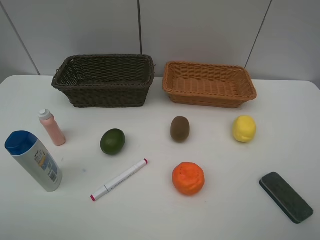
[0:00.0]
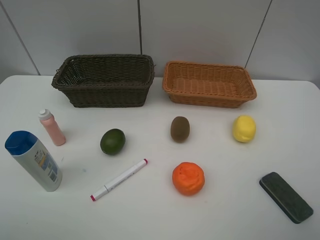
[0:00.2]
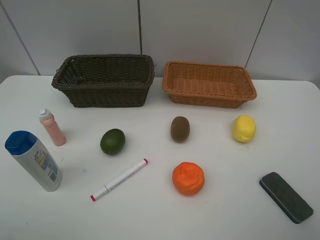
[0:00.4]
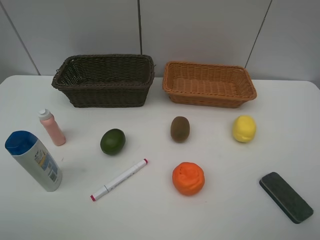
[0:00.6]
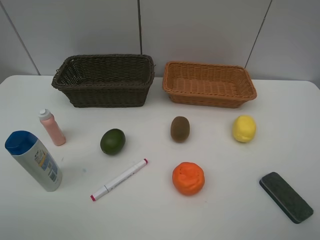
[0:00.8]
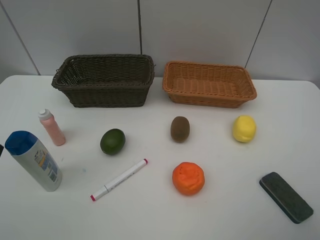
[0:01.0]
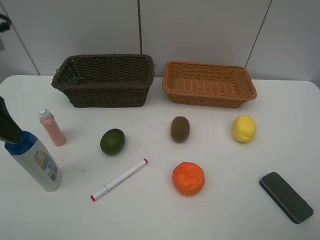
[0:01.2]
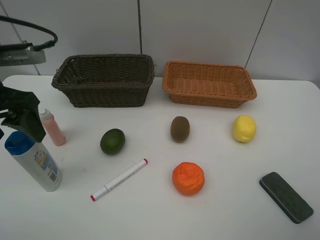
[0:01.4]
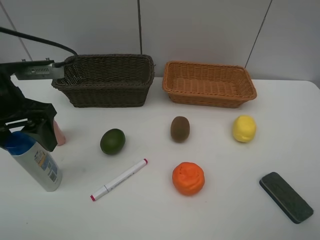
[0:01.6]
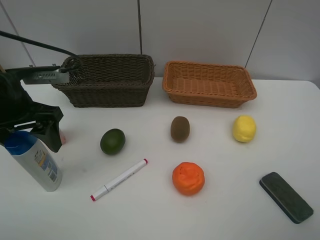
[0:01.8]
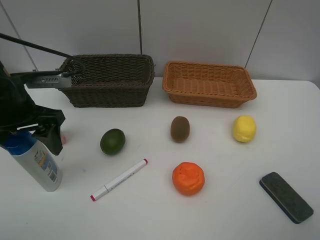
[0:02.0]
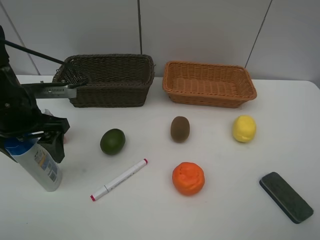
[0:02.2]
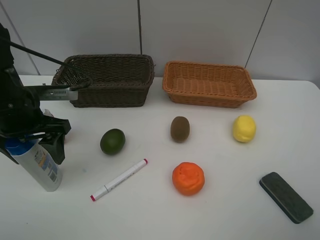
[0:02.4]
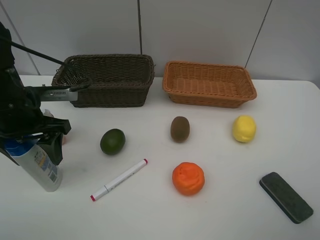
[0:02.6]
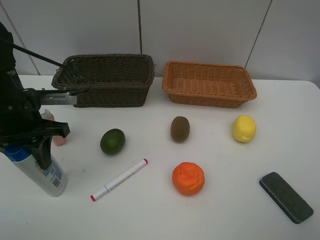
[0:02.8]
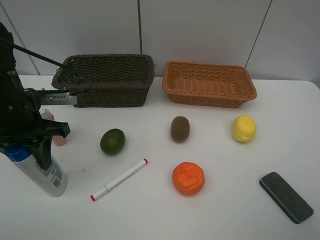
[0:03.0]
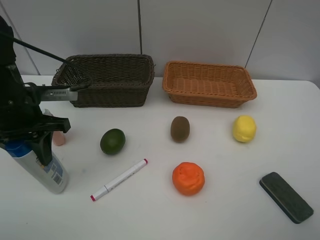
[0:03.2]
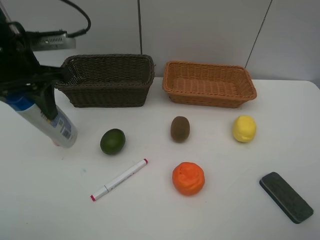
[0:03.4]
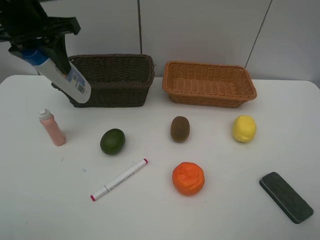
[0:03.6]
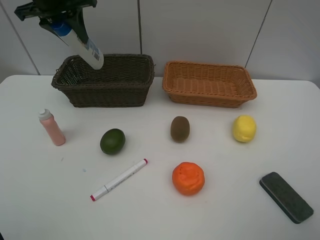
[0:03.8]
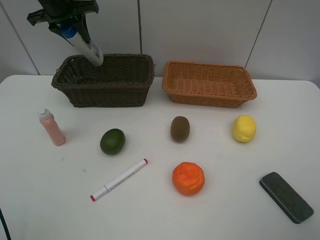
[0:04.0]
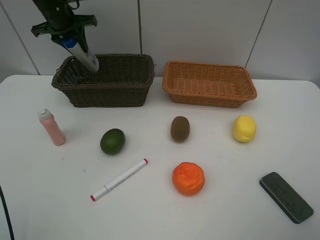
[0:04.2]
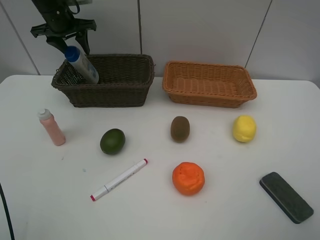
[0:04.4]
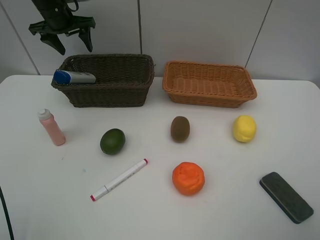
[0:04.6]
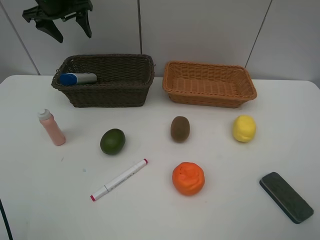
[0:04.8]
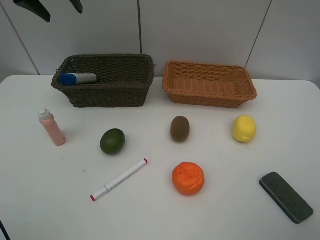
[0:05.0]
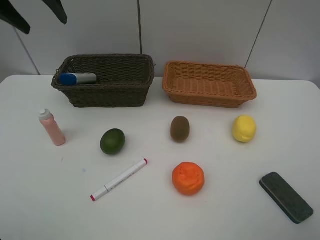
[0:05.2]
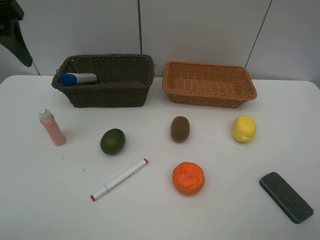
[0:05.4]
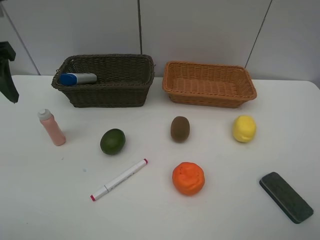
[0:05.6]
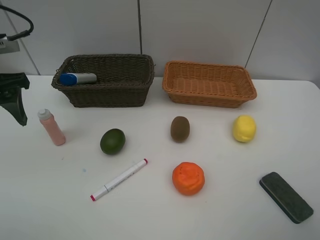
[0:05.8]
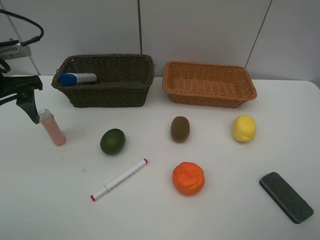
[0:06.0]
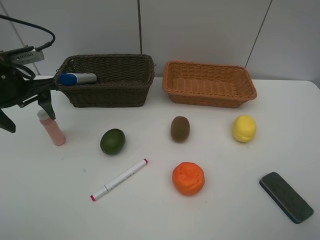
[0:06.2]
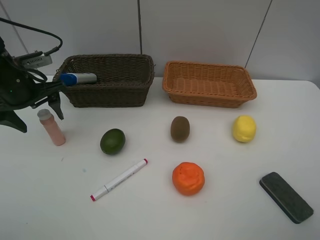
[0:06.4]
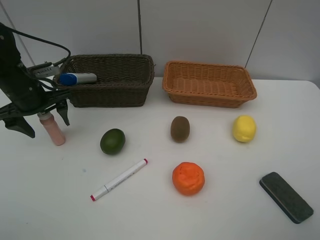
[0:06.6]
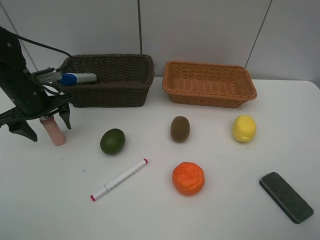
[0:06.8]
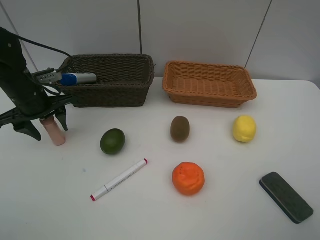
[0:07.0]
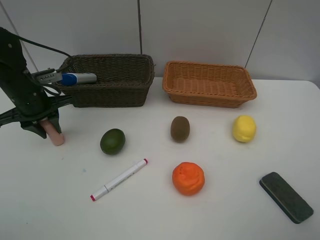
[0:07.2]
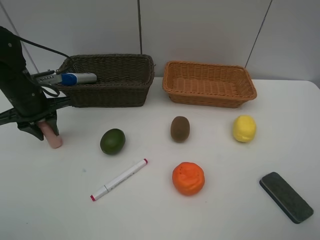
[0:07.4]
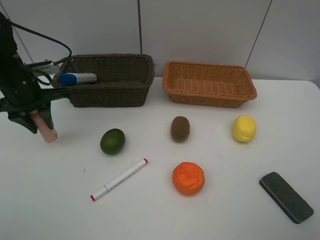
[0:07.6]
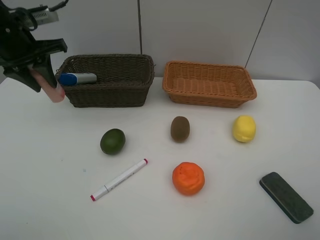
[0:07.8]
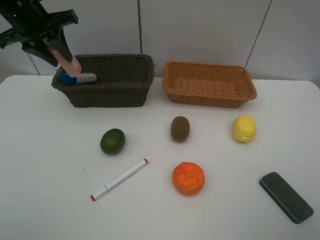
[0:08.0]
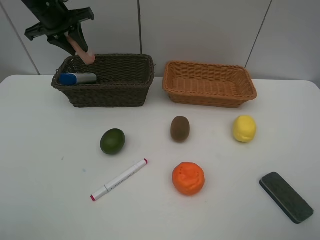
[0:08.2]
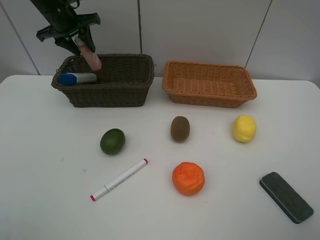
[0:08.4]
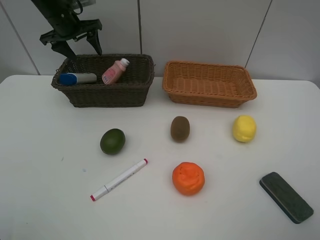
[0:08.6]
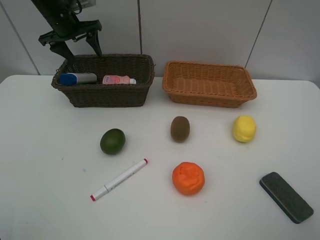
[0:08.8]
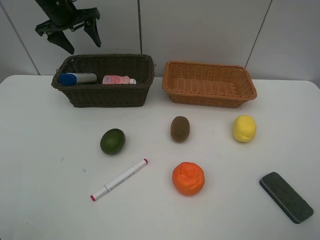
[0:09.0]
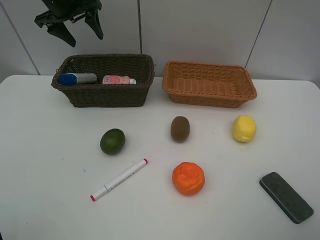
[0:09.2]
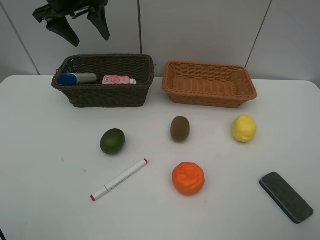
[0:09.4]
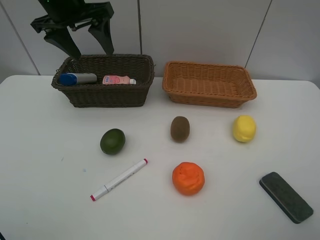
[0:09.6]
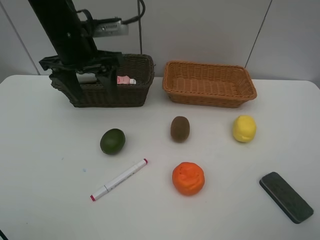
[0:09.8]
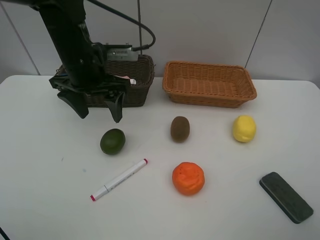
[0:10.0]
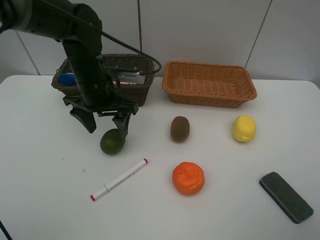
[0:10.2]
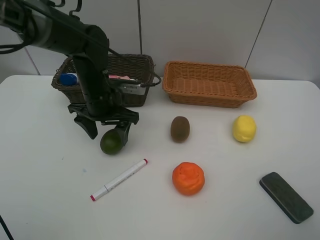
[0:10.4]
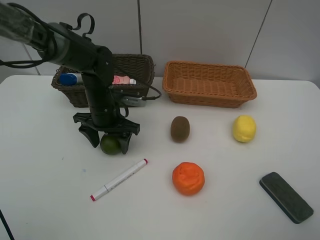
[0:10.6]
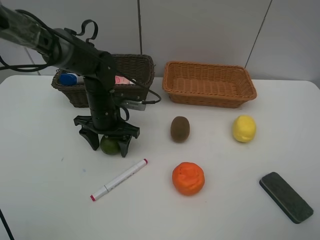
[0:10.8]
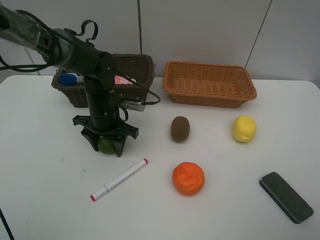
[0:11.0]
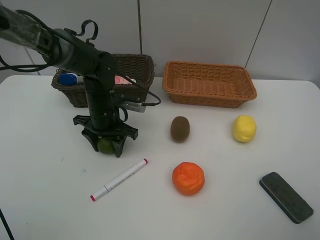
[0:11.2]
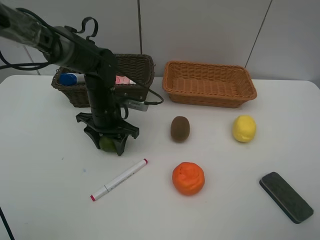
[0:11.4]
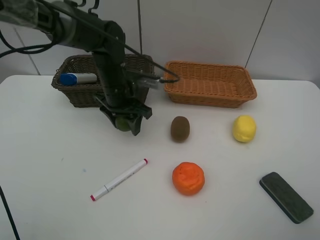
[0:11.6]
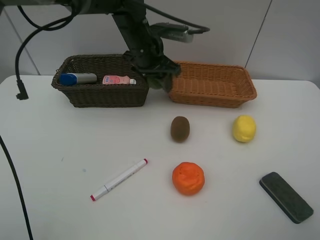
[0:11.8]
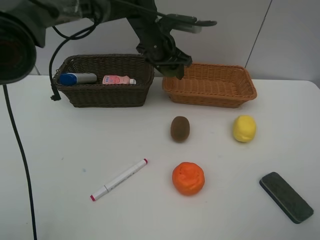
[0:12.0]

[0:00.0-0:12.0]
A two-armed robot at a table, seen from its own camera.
Task of the whole recording: Place multiple objects separately in different baskets.
Step, 0:00.0 to 0:03.2: Pick up the shampoo with left gripper.
Step, 0:03.4 to 0:04.4: Place the shampoo in the dark basket with left gripper.
Step, 0:04.6 to 0:07.6: Pick up the laundry detergent with left gripper.
Step, 0:07.8 to 0:08.6: Place the laundry detergent in the dark basket with left gripper.
Step, 0:08.8 to 0:11.4: Pick up the lime with left gripper.
0:00.0 to 0:01.6: The left gripper goes some 25 cm forward.
0:01.6 to 0:03.0: The left gripper closes up.
0:03.0 to 0:04.4: The left gripper travels forward by approximately 25 cm, and opens up.
0:04.4 to 0:06.0: The left gripper travels backward by some 25 cm.
0:06.0 to 0:07.6: The left gripper is displaced forward by approximately 5 cm, and closes up.
0:07.6 to 0:09.0: The left gripper goes some 20 cm forward and upward, and opens.
0:09.0 to 0:10.4: The left gripper is displaced backward, downward and to the right by roughly 25 cm.
0:10.4 to 0:12.0: The left gripper heads forward, to the right and upward, covering some 20 cm.

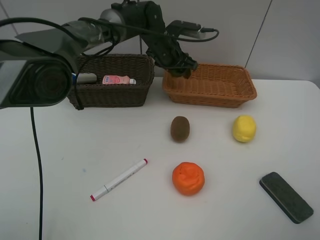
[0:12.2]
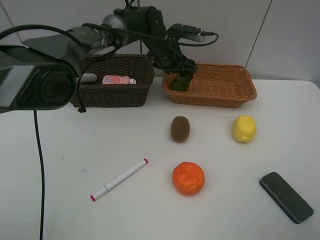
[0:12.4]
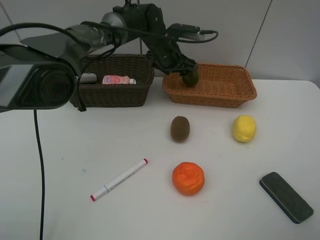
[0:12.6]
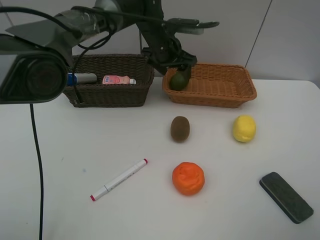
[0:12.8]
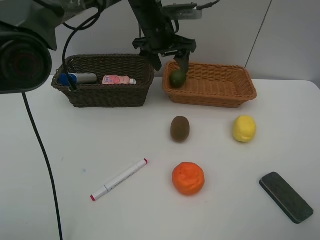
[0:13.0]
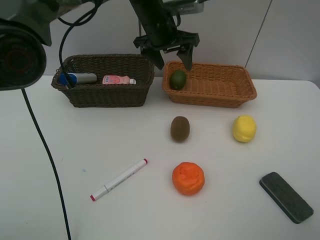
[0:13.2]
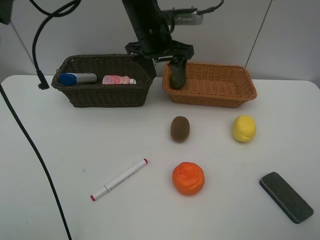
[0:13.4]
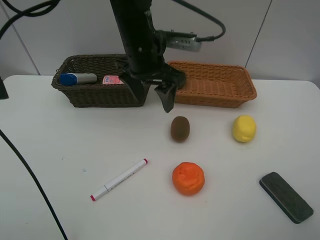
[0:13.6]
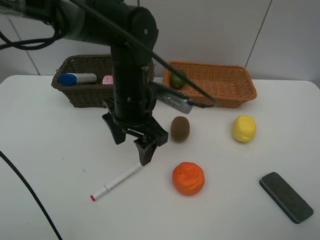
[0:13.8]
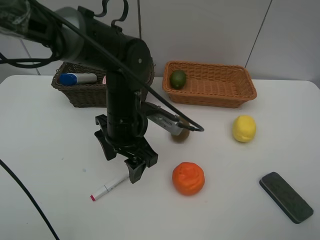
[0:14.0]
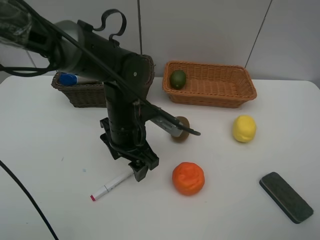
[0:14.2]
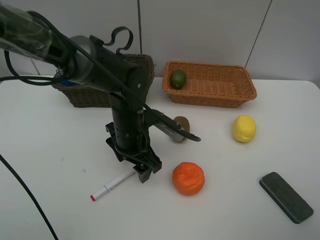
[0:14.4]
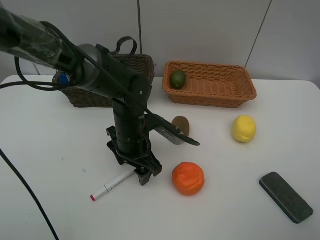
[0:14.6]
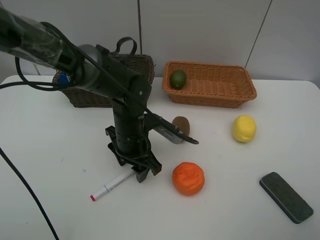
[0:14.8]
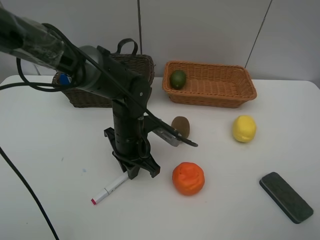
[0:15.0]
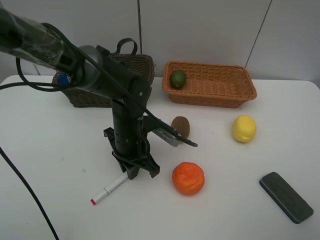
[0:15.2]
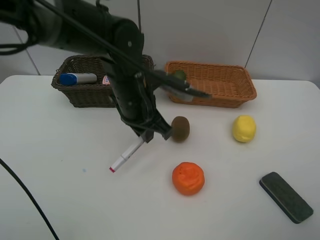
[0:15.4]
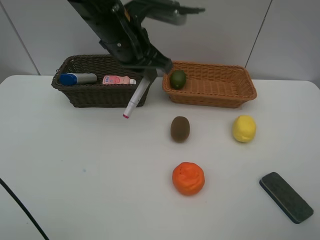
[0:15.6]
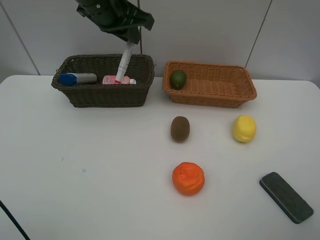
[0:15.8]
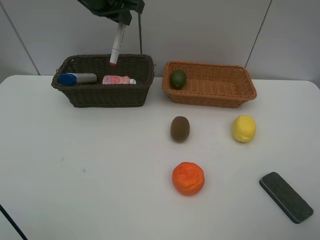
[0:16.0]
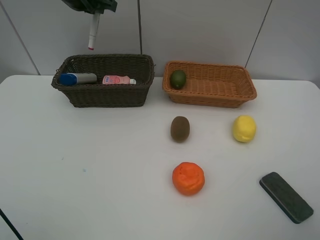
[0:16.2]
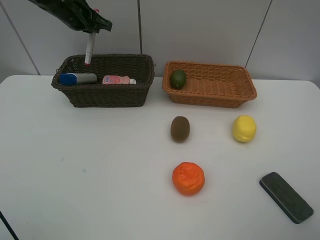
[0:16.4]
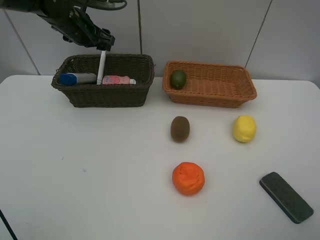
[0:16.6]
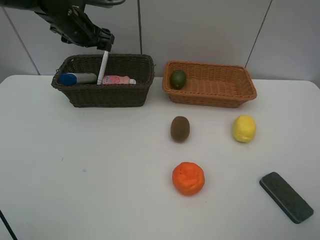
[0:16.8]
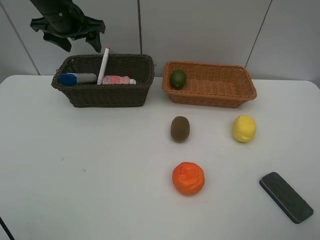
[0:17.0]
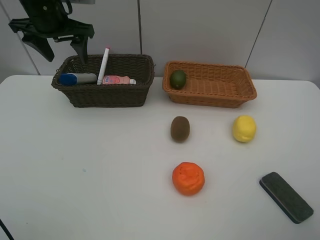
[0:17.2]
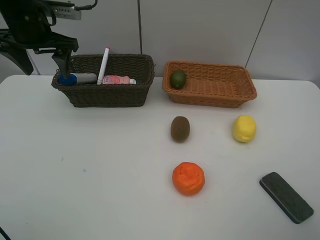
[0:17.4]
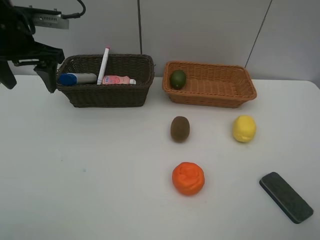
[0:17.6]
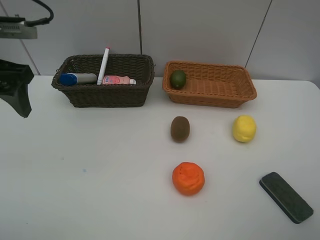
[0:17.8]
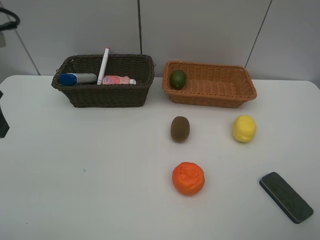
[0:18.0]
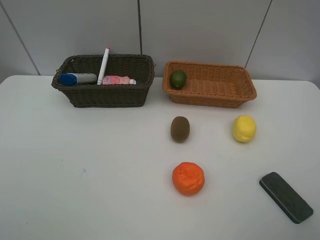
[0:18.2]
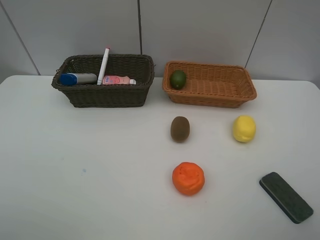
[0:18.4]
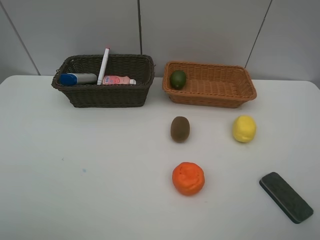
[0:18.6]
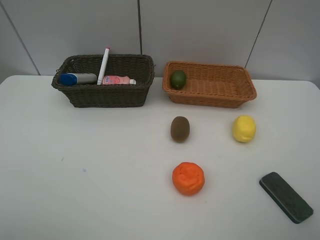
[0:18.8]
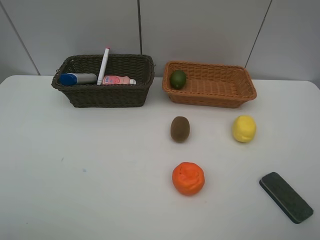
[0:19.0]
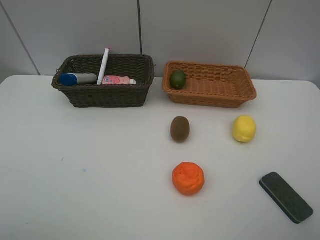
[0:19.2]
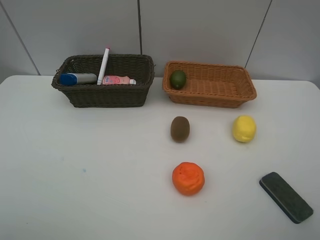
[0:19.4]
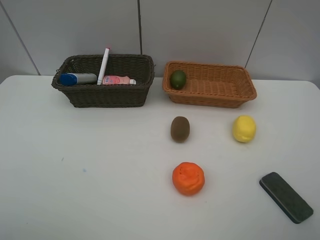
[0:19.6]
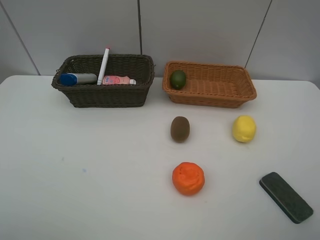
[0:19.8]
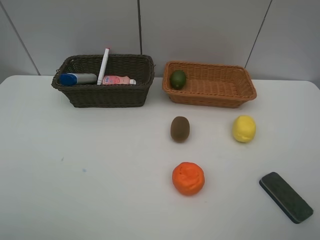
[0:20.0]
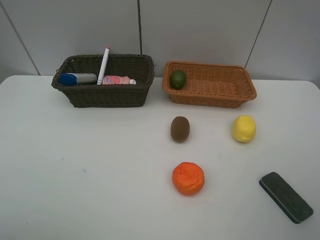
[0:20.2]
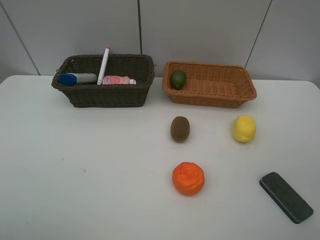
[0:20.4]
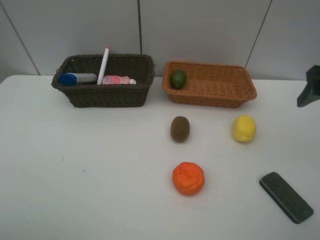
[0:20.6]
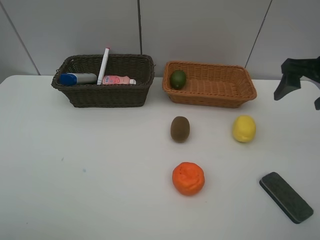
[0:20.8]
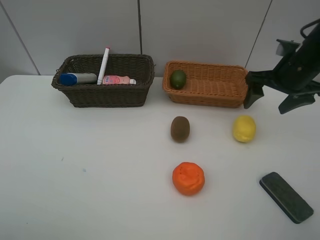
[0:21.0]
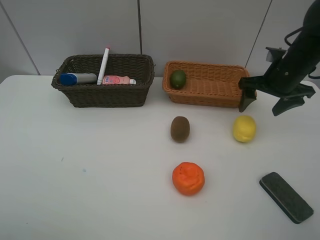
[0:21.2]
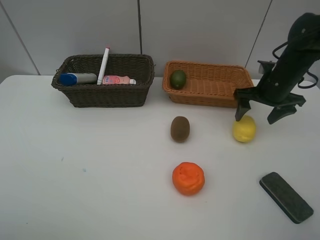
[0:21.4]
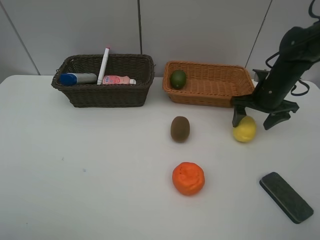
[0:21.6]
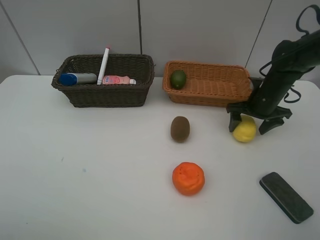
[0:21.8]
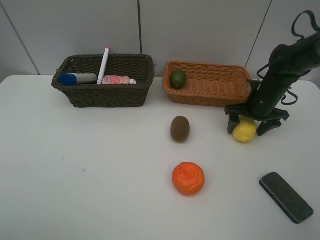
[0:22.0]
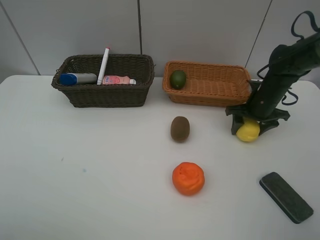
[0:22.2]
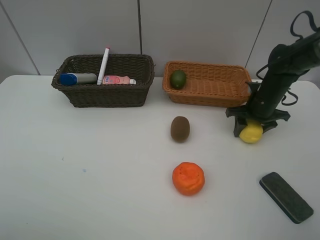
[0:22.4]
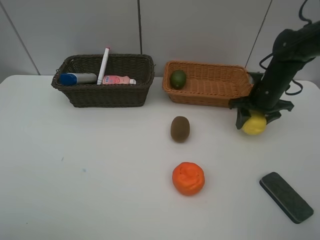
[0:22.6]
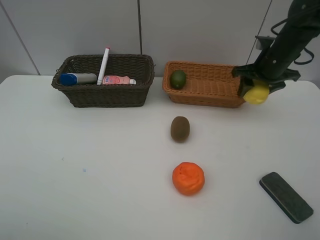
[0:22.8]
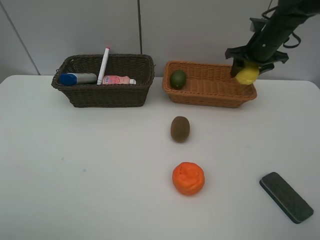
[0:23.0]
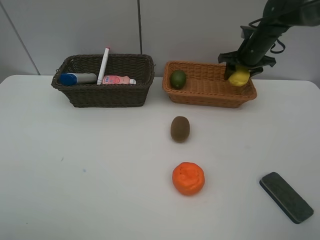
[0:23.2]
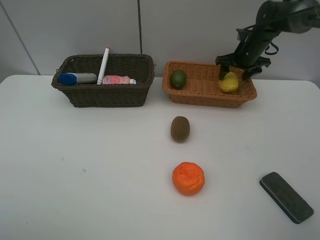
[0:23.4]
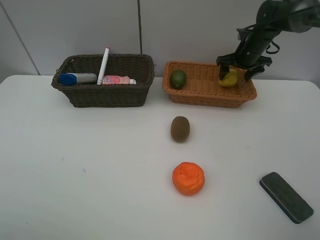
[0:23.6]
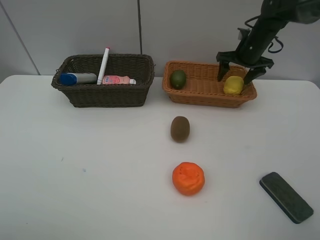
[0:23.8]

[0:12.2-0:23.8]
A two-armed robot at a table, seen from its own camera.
Task of the whole recording: Place multiple objects separately in different baskets.
Step, 0:12.2 to 0:12.8: Place the lime in the light basket with left gripper.
Step, 0:13.0 to 0:15.2: Pick up the red marker with left gripper.
Step, 0:15.4 to 0:16.8: Place the red marker in the dark basket with left gripper.
Step, 0:17.0 to 0:22.6: Pick up the lemon with right gripper.
Step, 0:22.8 to 0:23.4: Place the lemon in the light basket with right gripper.
0:12.2 to 0:13.6: The left gripper moves backward and upward, approximately 15 cm.
0:13.6 to 0:15.0: The left gripper goes approximately 15 cm downward and backward, and closes.
0:15.0 to 0:16.6: The left gripper travels forward, to the left and upward by approximately 30 cm, and opens up.
0:16.6 to 0:18.0: The left gripper shifts approximately 30 cm backward.
0:18.0 to 0:19.4: The left gripper is displaced backward by roughly 15 cm.
0:19.4 to 0:21.0: The right gripper shifts approximately 35 cm forward.
0:21.0 to 0:22.4: The right gripper heads downward, covering some 10 cm, and closes.
0:22.4 to 0:23.8: The right gripper travels forward and upward by roughly 15 cm, and opens up.
